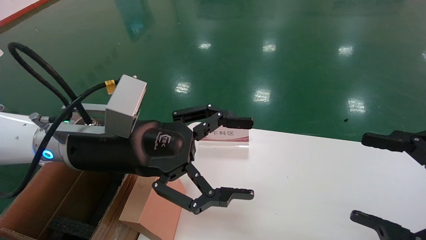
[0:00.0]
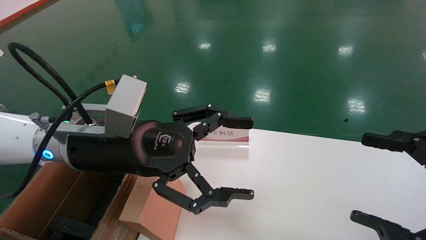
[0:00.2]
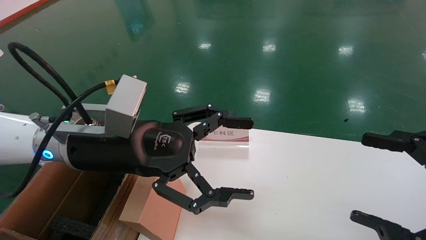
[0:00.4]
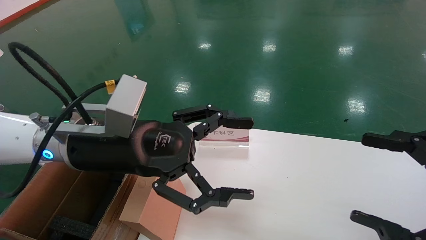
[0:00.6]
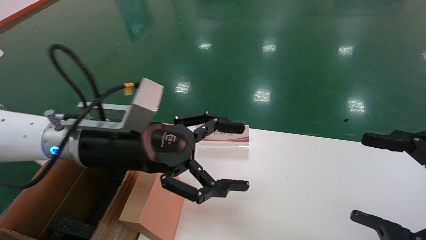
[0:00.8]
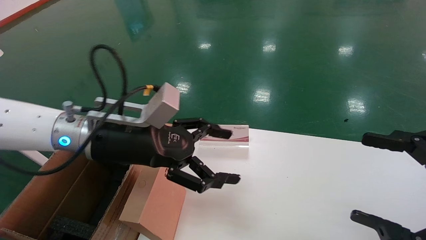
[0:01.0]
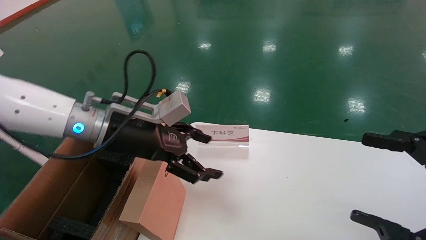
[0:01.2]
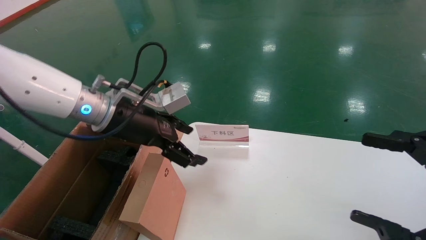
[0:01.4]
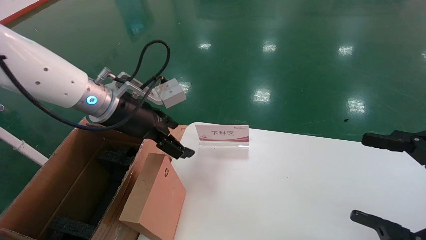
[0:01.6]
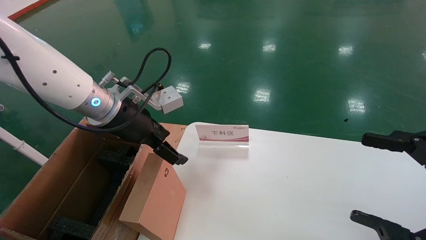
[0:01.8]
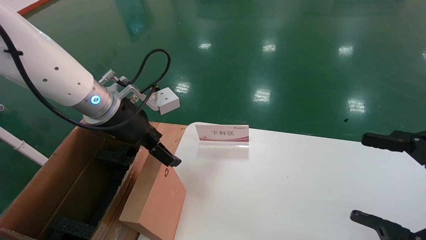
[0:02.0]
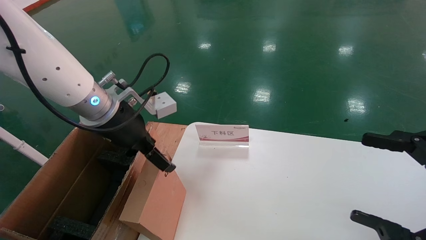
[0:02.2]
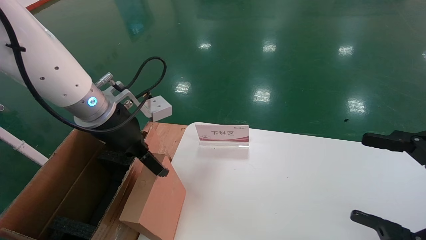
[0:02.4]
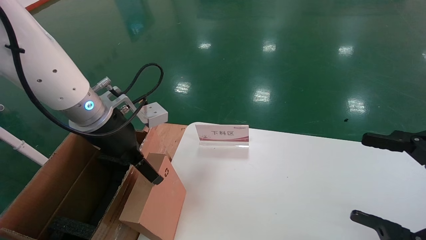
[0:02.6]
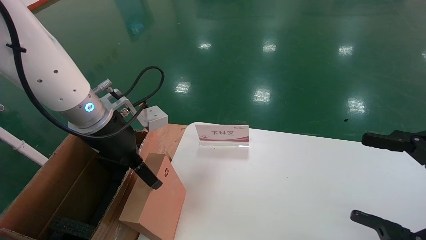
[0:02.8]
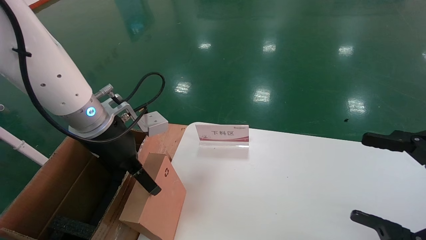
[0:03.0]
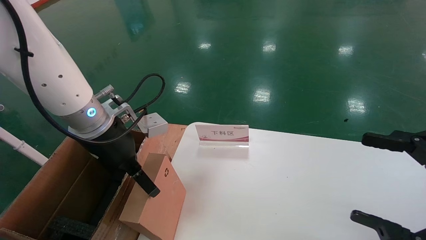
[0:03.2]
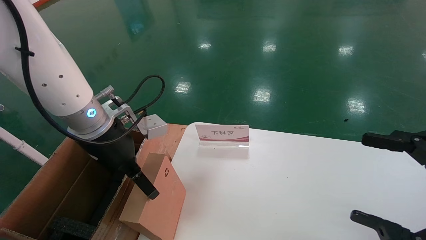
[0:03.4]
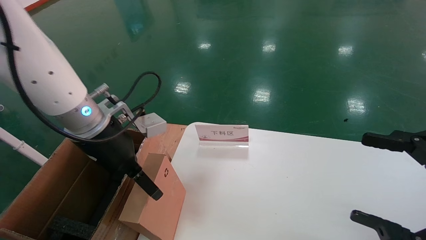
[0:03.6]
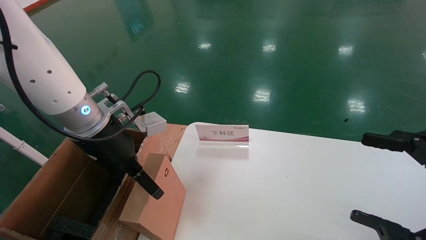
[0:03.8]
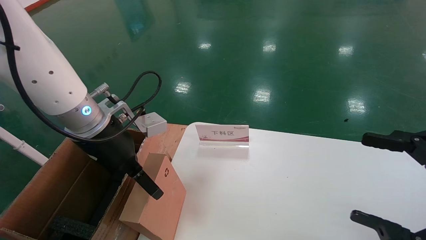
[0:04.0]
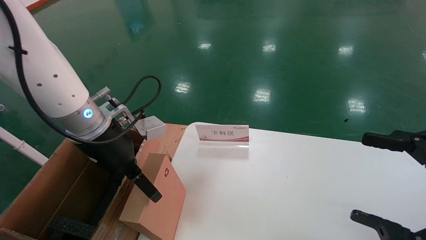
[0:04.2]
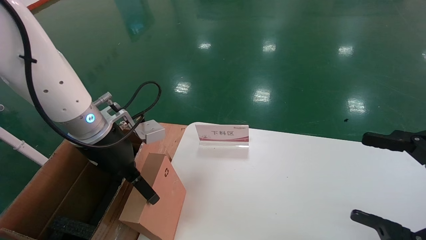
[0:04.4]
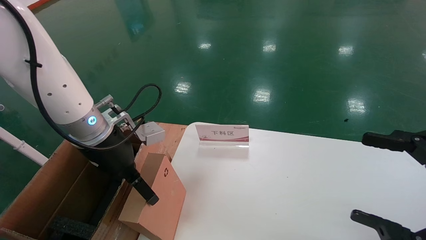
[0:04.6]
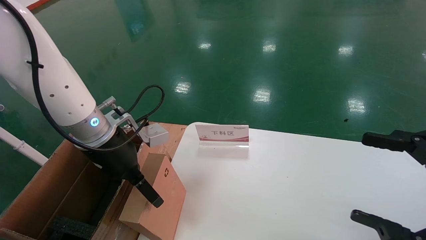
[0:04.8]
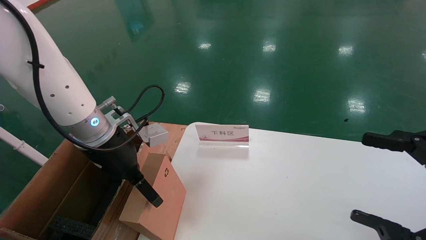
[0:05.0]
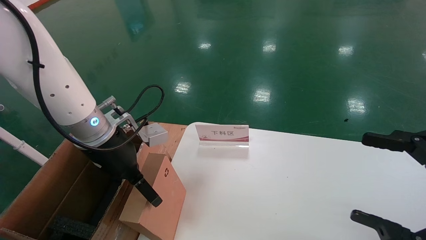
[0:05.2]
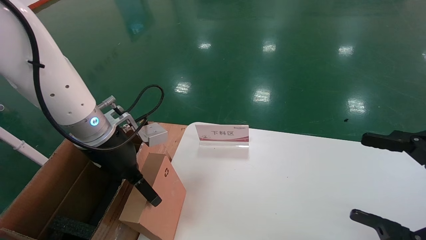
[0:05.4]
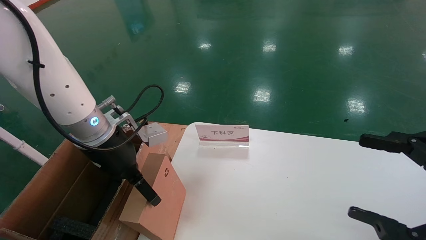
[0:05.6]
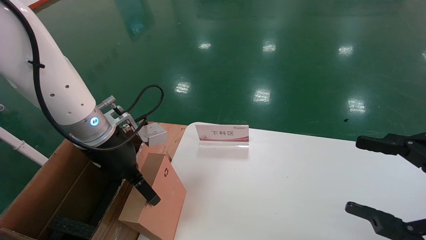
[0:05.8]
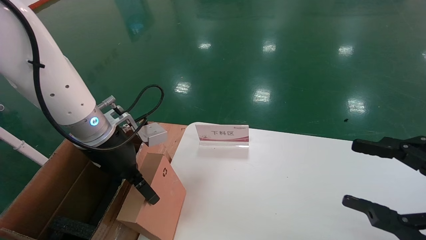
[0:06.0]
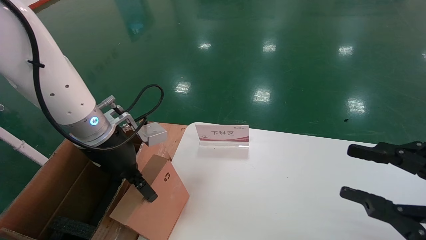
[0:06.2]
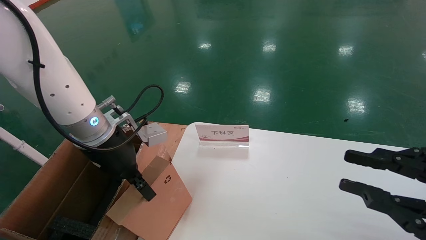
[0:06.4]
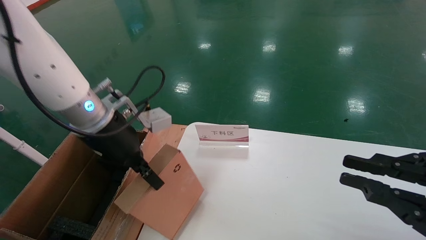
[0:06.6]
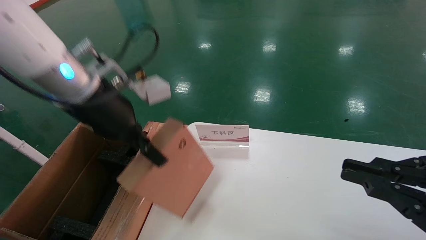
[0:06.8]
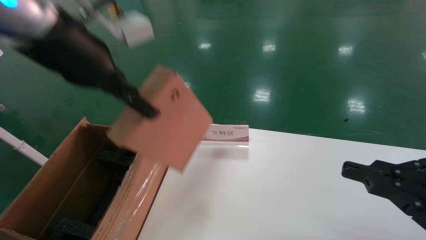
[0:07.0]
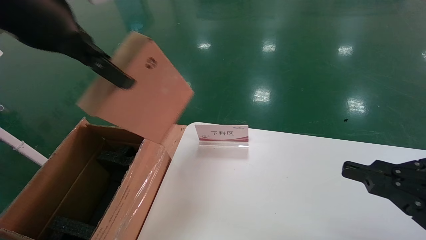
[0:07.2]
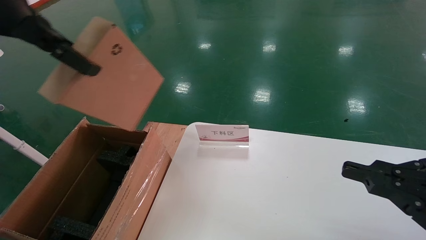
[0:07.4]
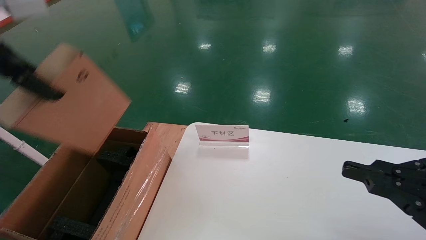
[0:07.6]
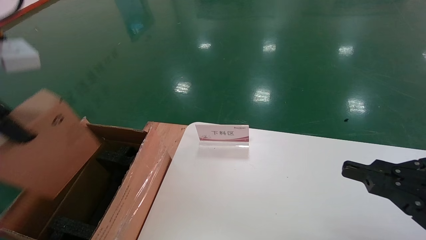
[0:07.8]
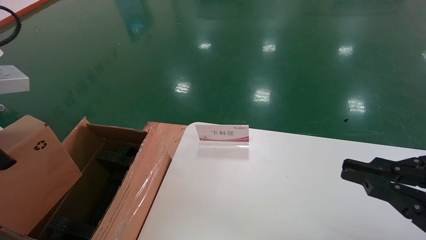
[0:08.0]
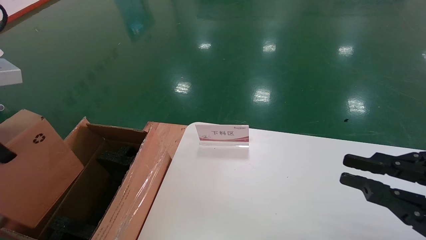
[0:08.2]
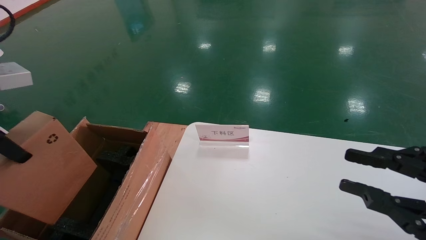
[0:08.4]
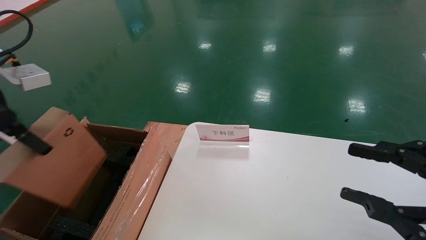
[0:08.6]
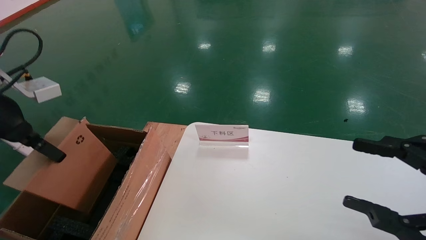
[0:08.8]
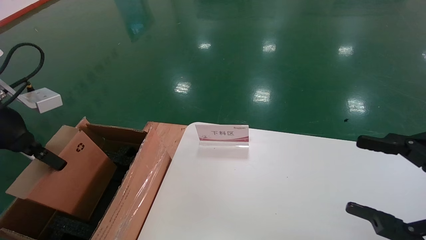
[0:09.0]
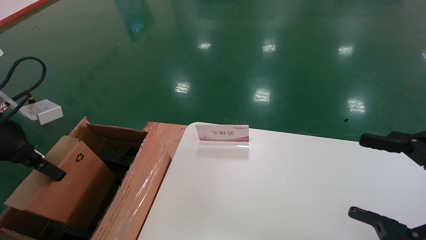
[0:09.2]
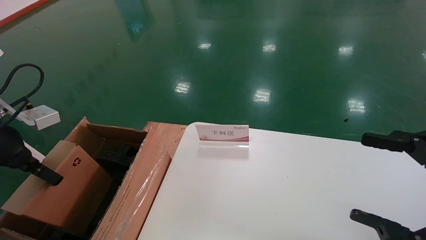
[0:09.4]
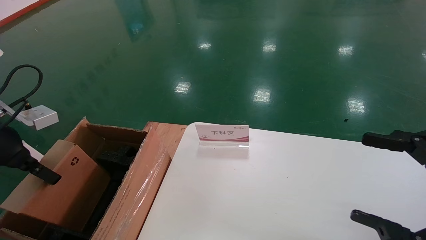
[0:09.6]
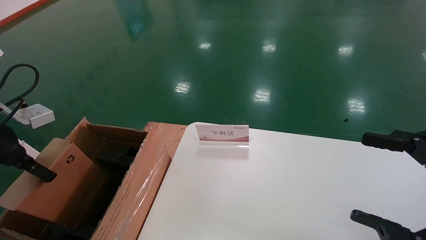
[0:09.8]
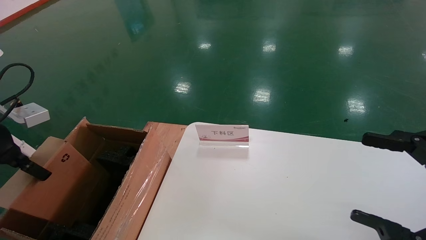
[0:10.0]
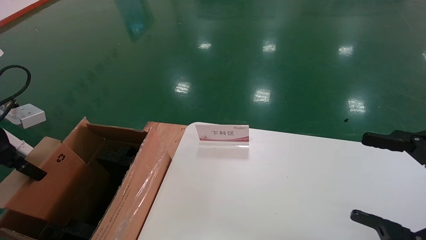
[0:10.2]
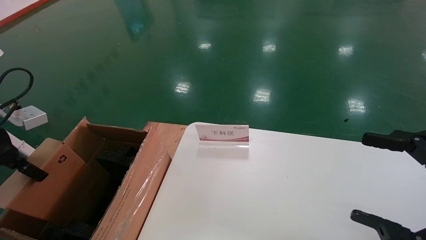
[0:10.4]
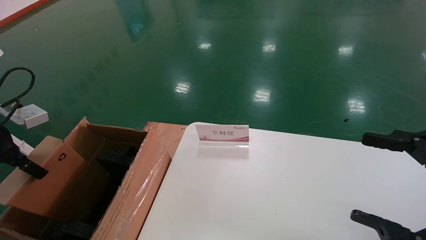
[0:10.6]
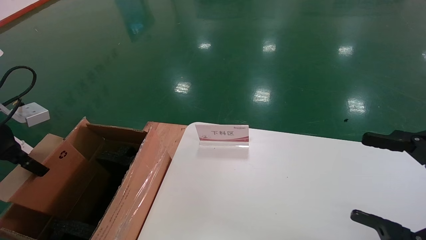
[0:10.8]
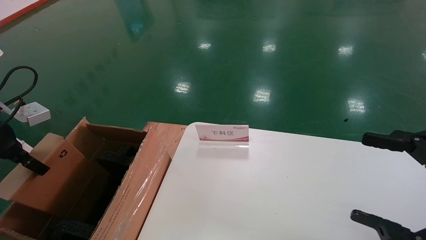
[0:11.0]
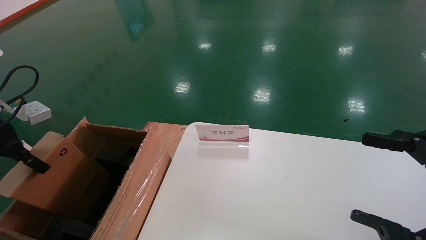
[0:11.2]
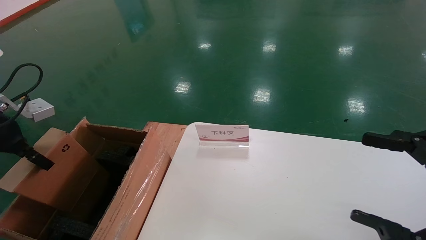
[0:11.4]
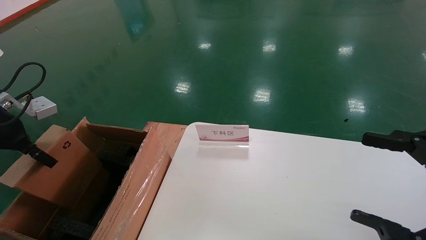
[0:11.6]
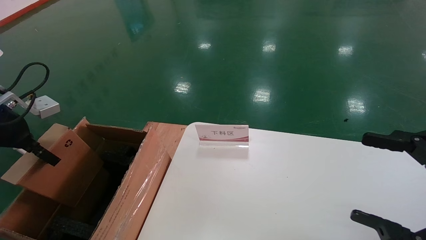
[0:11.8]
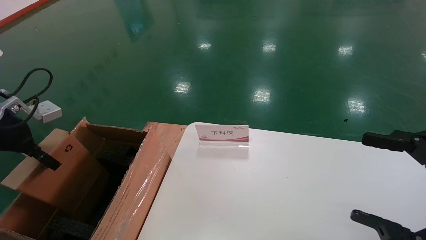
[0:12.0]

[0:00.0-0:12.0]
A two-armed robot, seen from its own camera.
Task of the whole recording: pick up the small cardboard box and load it into the large cardboard box.
Step, 0:01.0 to 0:06.4: Pick up the mouse and power cord box.
0:00.0 to 0:01.6: The left gripper goes approximately 10 cm forward.
0:03.0 to 0:04.4: The grippers stay close to where they were, moving slightly.
0:04.4 to 0:06.0: Both grippers stay put.
0:06.0 to 0:07.6: The left gripper moves upward, backward and to the left, approximately 25 cm, and closes up. The right gripper closes up.
0:07.6 to 0:09.0: The right gripper opens its fingers; the left gripper is displaced downward and to the left by roughly 15 cm.
0:09.0 to 0:10.4: The left gripper moves to the left, approximately 5 cm.
0:10.4 to 0:12.0: The left gripper changes place by roughly 5 cm.

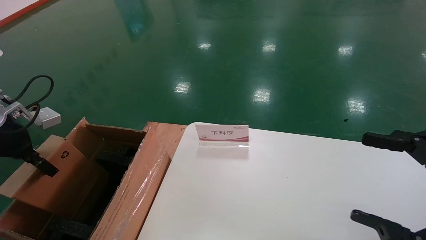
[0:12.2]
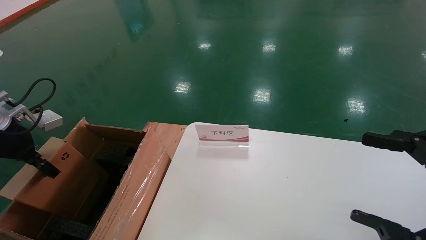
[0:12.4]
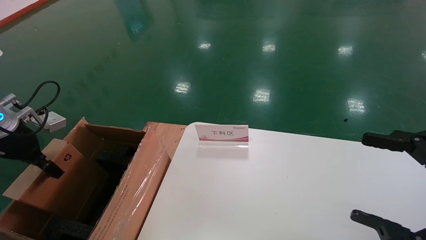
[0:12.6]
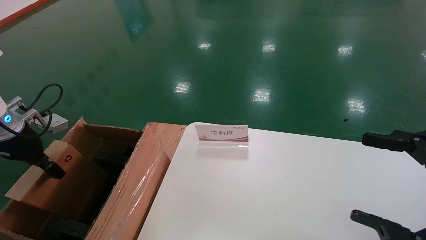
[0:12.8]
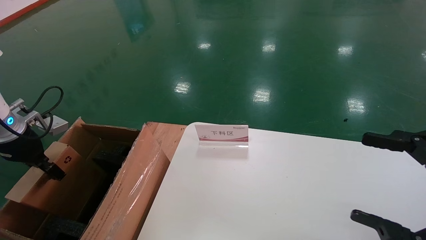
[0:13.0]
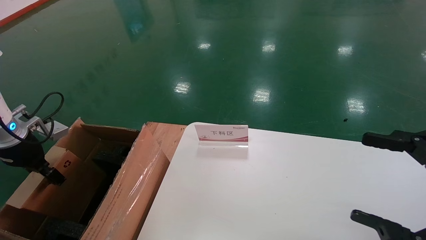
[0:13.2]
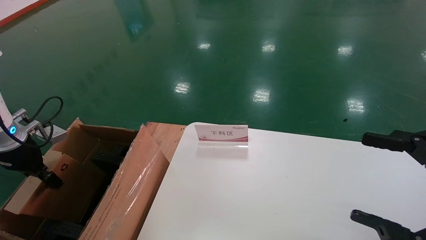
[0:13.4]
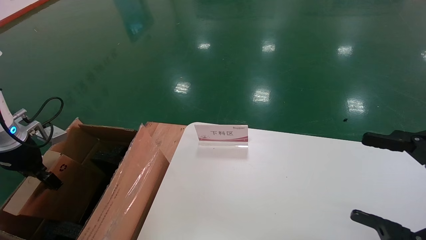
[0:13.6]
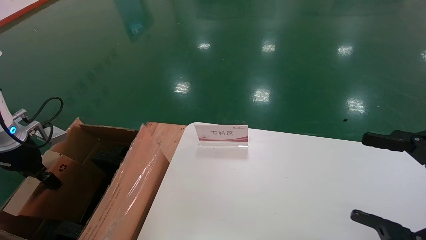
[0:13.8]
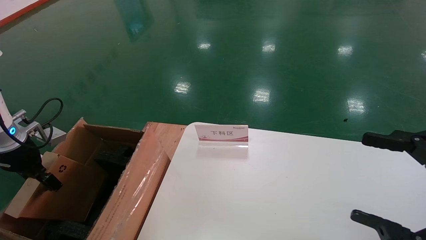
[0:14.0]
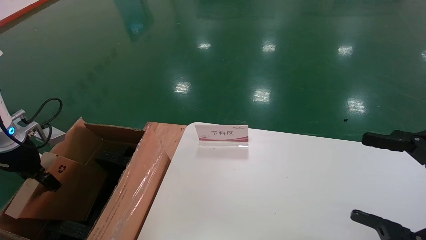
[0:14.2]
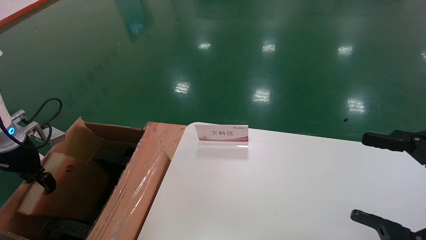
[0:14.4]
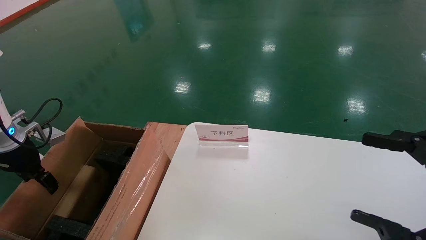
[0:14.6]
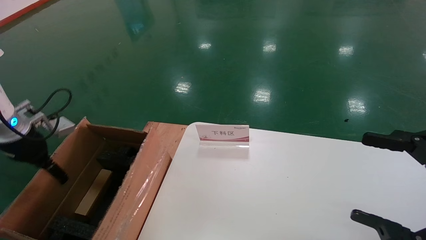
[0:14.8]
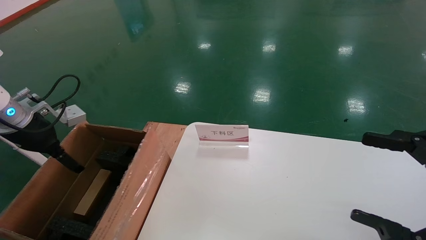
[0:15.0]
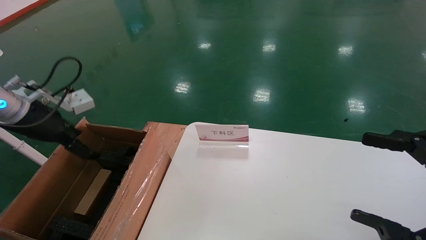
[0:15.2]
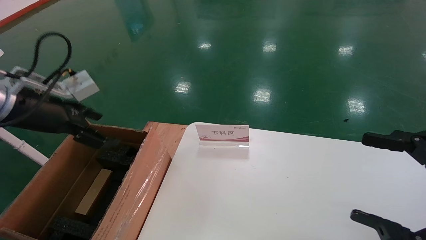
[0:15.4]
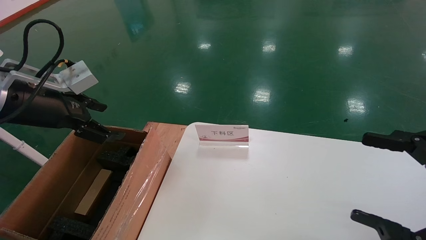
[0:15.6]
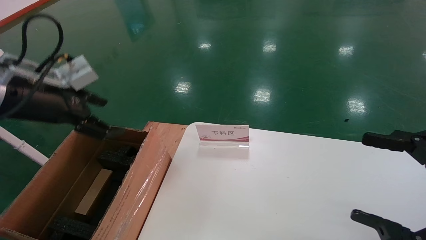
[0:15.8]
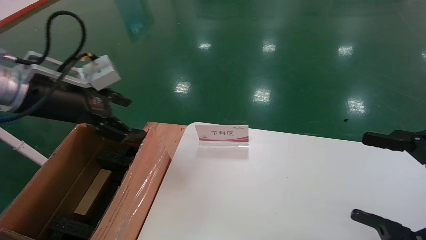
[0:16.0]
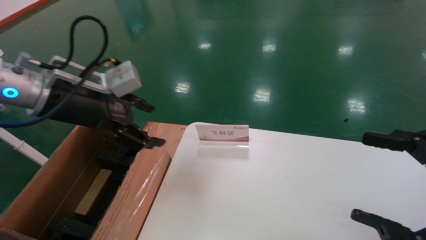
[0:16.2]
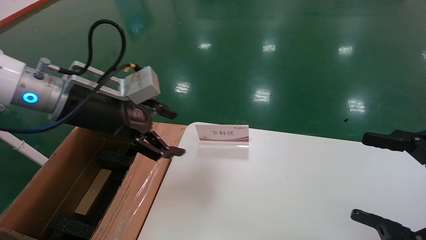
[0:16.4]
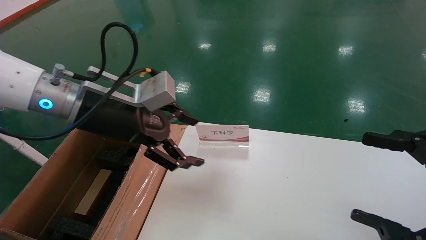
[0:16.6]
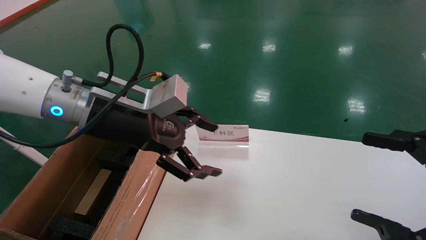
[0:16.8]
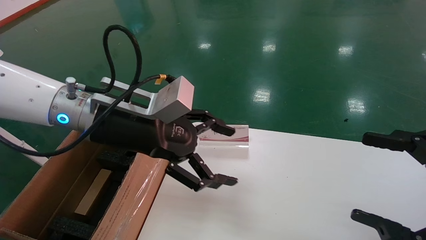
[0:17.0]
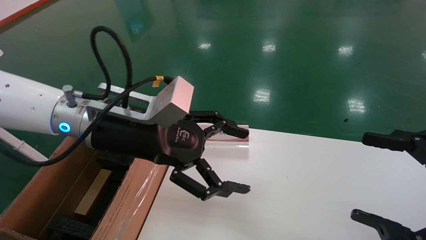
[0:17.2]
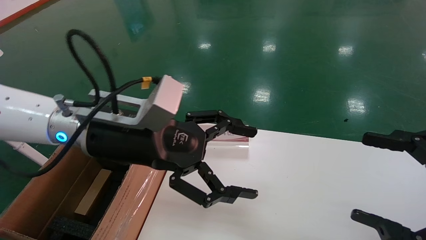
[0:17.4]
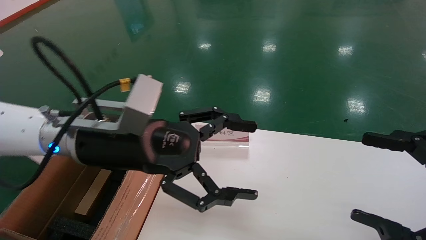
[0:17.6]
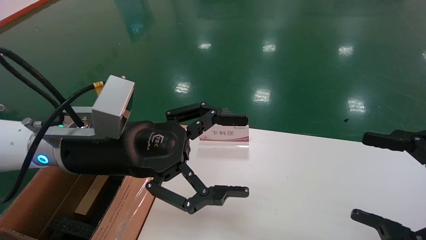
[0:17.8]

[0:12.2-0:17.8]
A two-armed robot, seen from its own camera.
Task of the whole recording: pick up the small cardboard box and load it into the large cardboard box.
Step, 0:12.2 to 0:14.6: Place the mouse and power cord box into the case.
0:12.2 to 0:13.6: The left gripper moves downward, some 5 cm.
0:13.6 to 0:15.0: The left gripper is displaced upward by about 5 cm, and opens its fingers.
0:15.0 to 0:16.4: The left gripper is displaced to the right by some 20 cm.
0:16.4 to 0:17.8: The left gripper heads to the right, covering about 5 cm.
